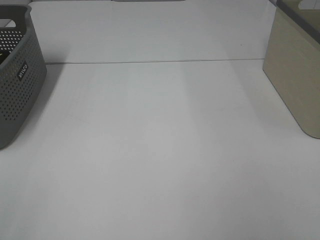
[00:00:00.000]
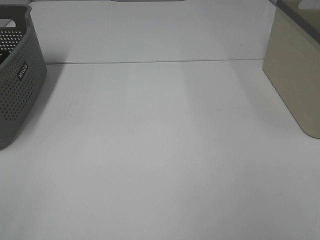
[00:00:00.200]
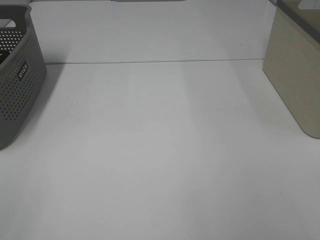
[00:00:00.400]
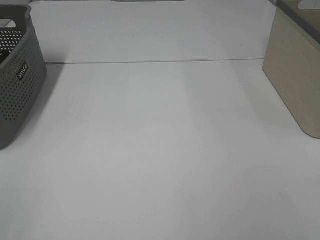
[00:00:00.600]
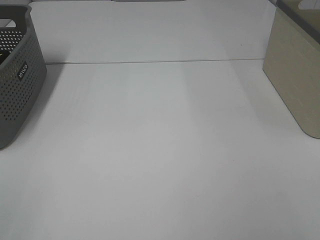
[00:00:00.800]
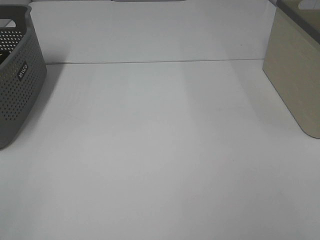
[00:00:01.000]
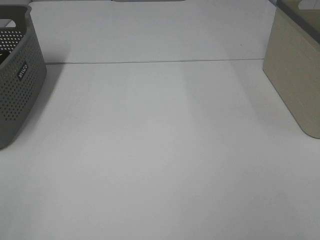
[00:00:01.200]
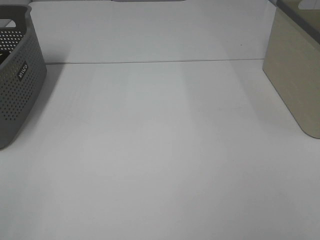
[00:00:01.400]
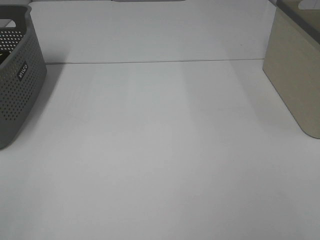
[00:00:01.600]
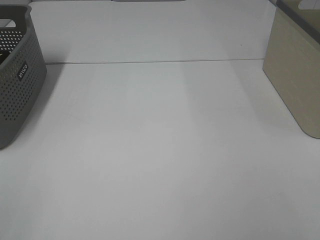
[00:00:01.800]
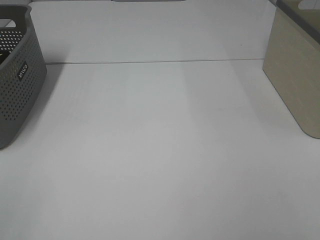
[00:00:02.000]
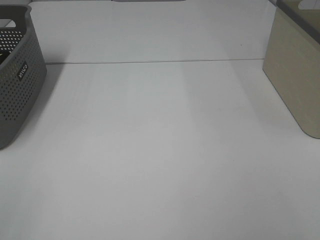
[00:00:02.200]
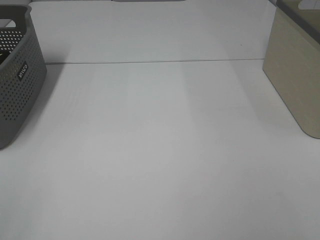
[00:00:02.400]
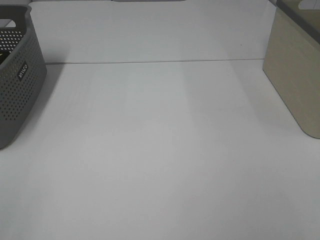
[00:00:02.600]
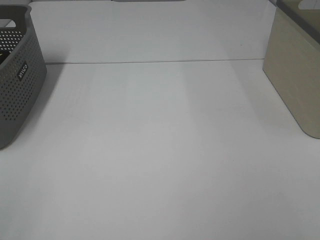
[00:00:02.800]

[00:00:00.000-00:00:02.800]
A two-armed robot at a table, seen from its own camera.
00:00:01.400 to 00:00:02.800: Both grippers stay put.
